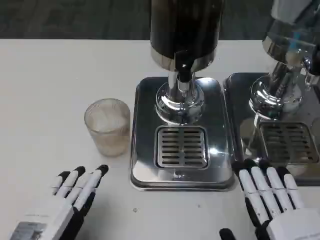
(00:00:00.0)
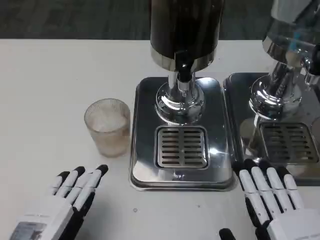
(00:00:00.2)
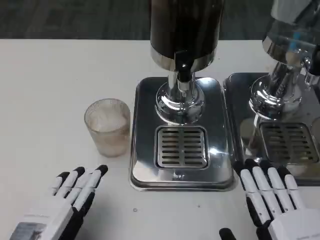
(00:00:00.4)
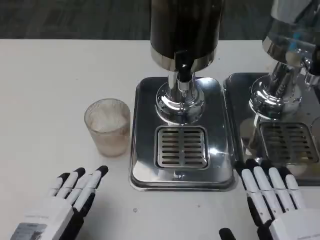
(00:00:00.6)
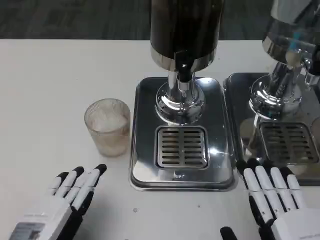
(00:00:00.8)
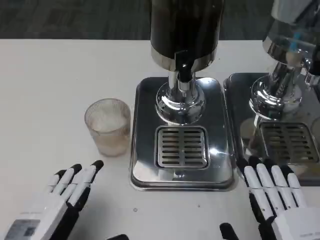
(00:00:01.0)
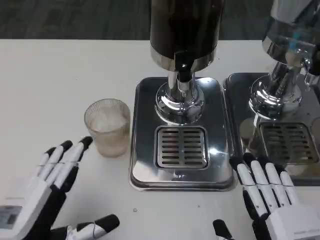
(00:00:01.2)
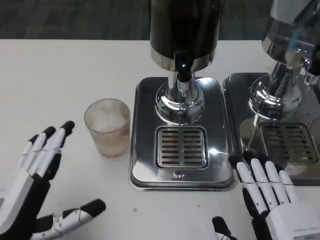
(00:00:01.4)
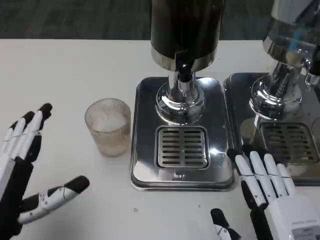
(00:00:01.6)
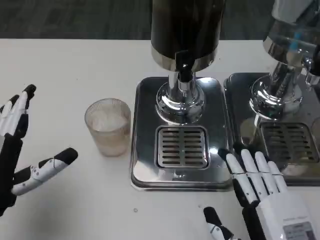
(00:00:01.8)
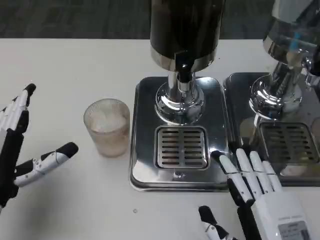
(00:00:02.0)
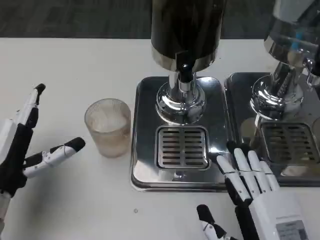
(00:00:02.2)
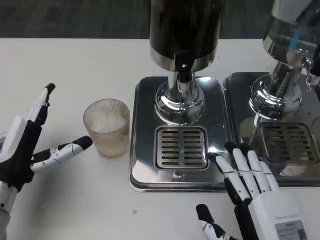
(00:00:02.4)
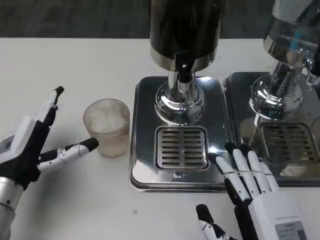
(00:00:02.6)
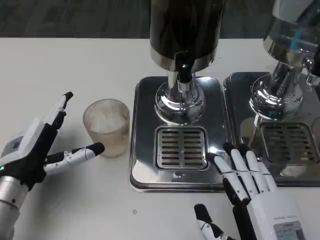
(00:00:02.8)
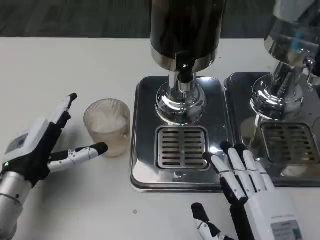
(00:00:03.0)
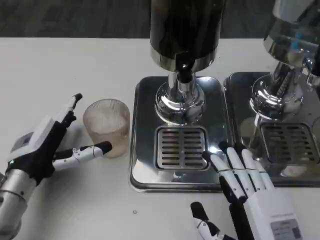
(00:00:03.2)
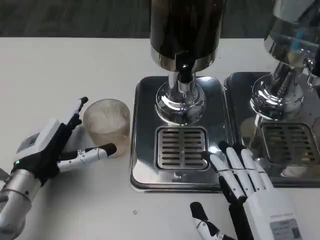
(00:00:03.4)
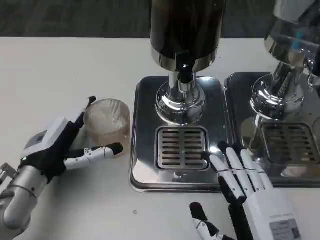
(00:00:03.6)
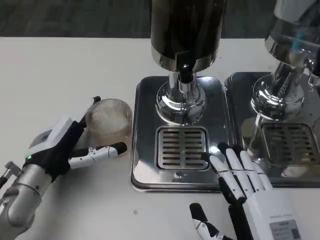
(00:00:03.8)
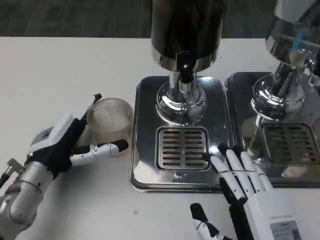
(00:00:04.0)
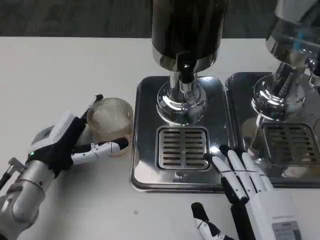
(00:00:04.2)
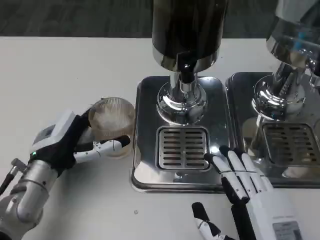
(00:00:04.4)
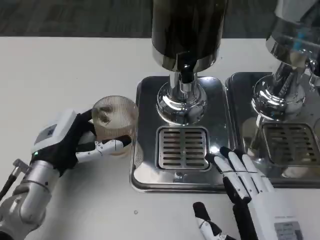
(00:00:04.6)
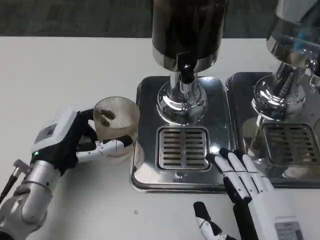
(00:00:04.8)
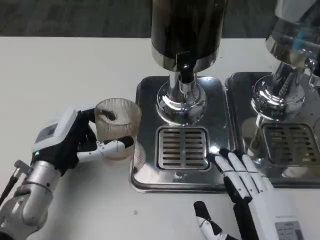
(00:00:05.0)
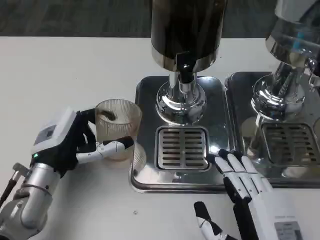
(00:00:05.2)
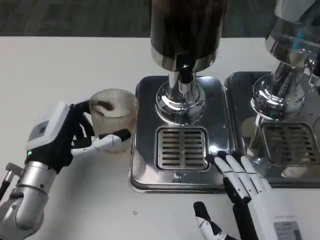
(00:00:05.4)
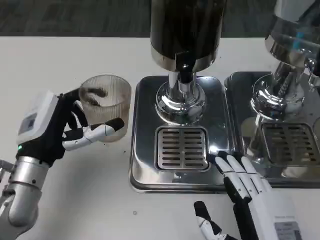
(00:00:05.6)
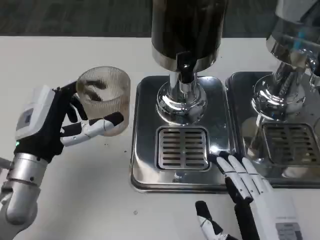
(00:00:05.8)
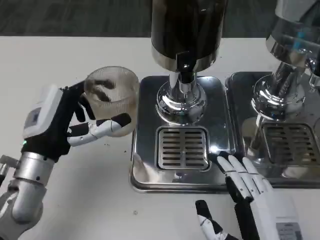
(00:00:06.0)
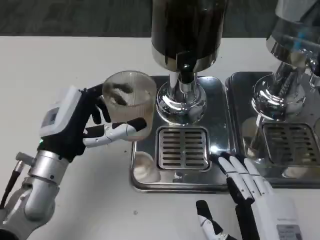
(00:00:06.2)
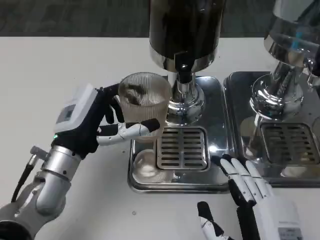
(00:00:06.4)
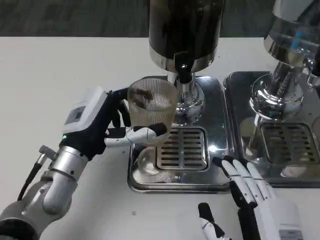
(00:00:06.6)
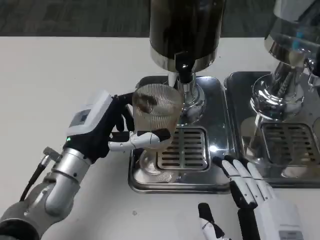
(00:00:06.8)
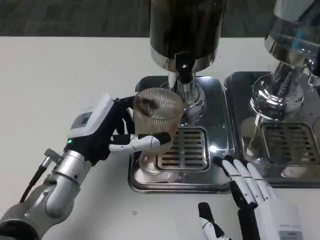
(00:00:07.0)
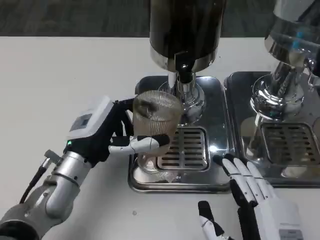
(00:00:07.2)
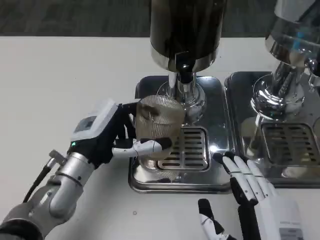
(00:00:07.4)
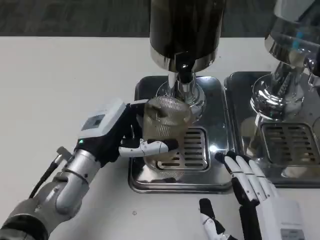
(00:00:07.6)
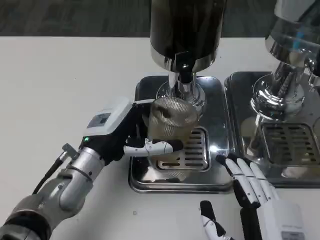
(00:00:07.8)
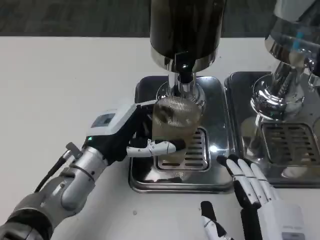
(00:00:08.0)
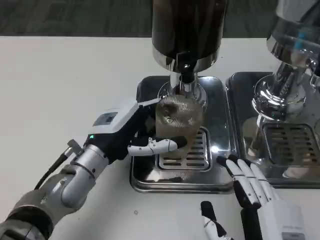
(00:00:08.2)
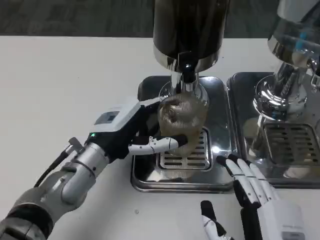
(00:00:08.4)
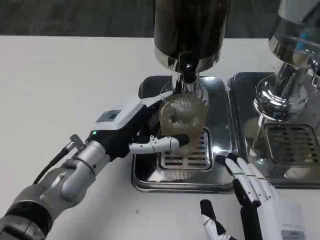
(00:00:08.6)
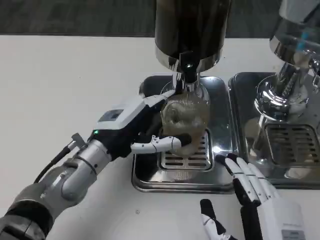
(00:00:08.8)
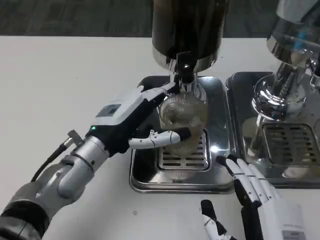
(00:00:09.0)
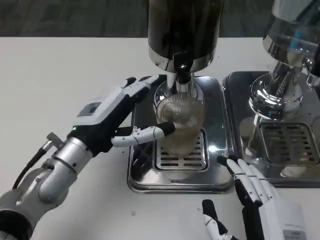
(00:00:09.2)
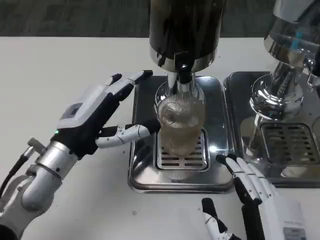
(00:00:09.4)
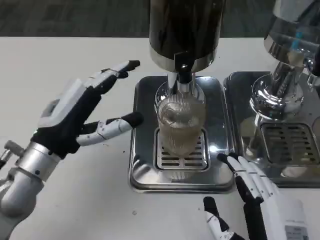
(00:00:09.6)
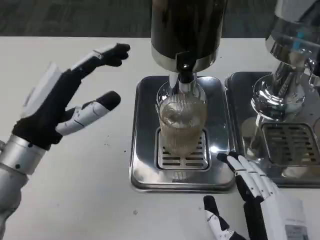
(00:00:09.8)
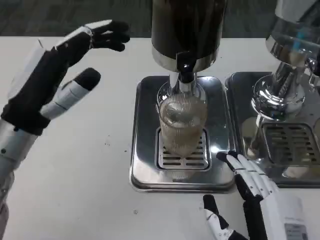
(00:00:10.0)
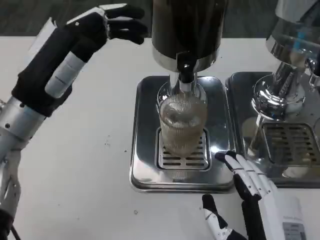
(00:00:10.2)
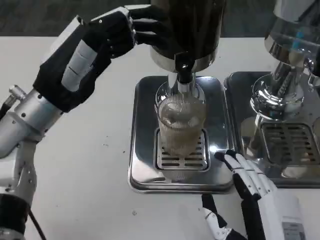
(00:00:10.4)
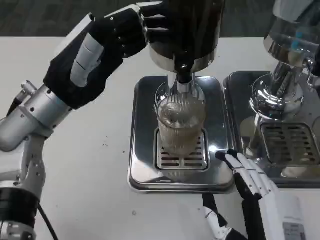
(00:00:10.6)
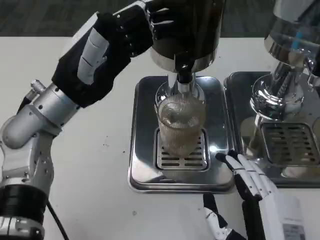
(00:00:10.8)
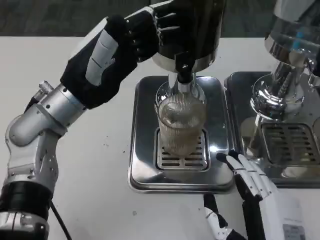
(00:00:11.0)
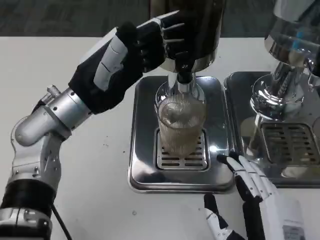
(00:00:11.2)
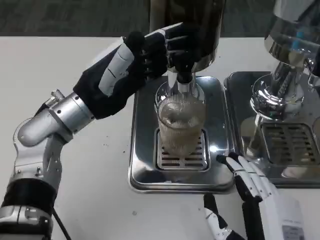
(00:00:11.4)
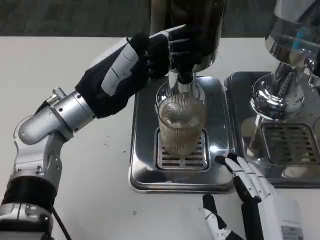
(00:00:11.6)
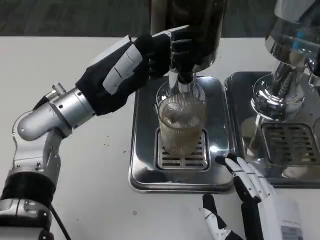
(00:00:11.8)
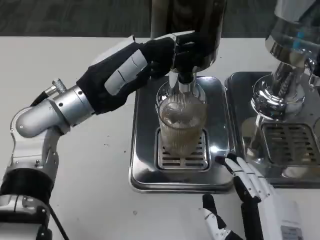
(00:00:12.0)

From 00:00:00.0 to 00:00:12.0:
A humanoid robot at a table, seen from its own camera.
Task of the whole recording: Grasp the cup under the faucet to collect the drink, then remove the cup.
From 00:00:00.0 to 00:00:01.6: The left hand shifts by some 5 cm.
From 00:00:01.6 to 00:00:03.0: The left hand goes some 10 cm forward.
From 00:00:03.0 to 00:00:04.4: The hands make only small movements.
From 00:00:06.0 to 00:00:07.6: The left hand shifts by about 5 cm.
From 00:00:09.0 to 00:00:10.4: The left hand travels upward by some 10 cm.

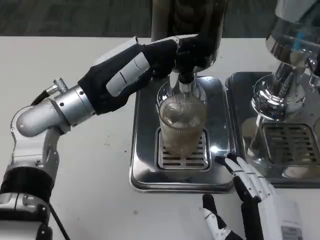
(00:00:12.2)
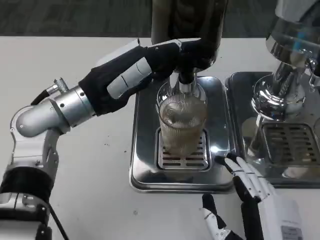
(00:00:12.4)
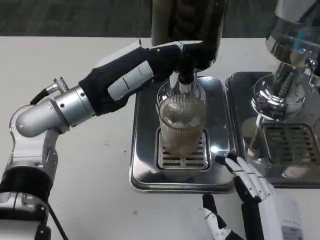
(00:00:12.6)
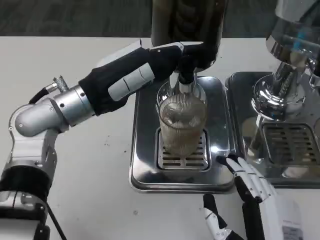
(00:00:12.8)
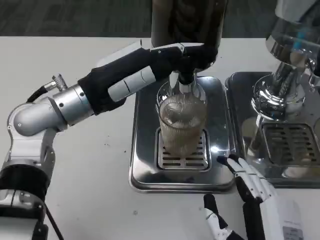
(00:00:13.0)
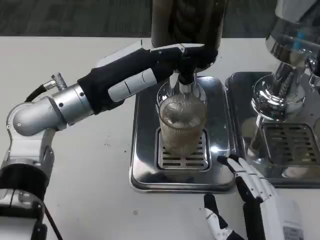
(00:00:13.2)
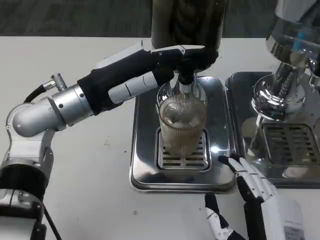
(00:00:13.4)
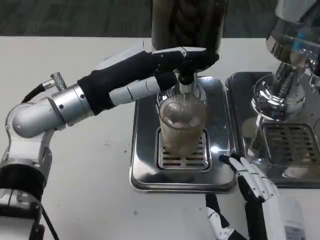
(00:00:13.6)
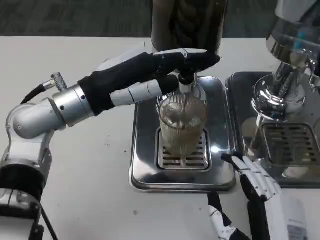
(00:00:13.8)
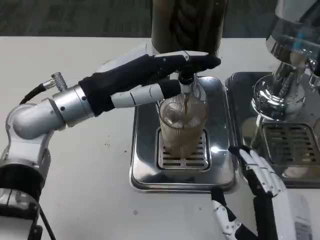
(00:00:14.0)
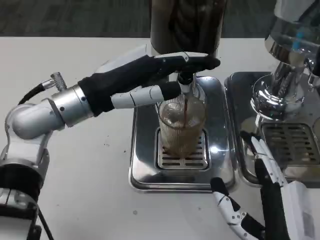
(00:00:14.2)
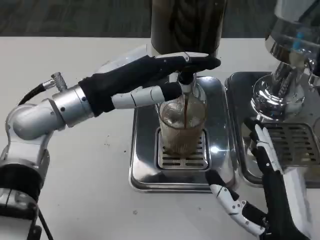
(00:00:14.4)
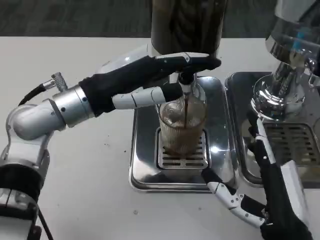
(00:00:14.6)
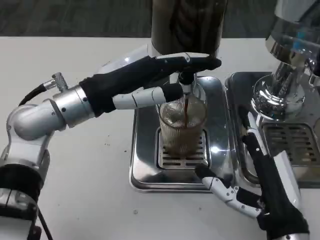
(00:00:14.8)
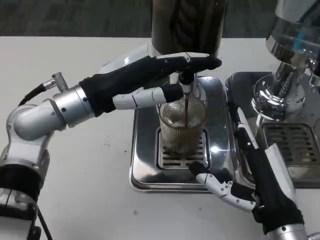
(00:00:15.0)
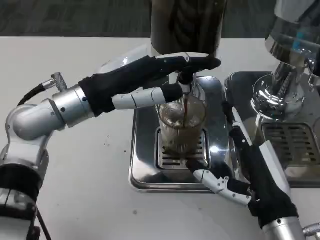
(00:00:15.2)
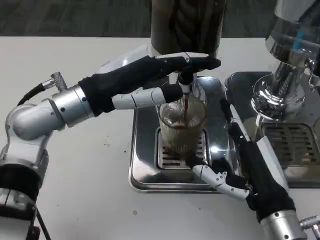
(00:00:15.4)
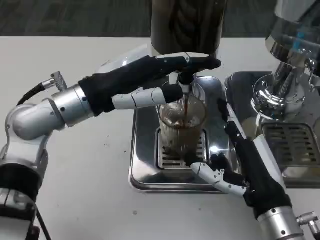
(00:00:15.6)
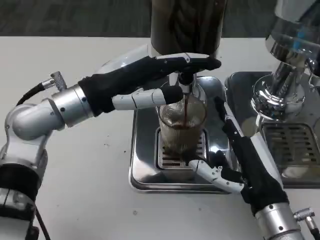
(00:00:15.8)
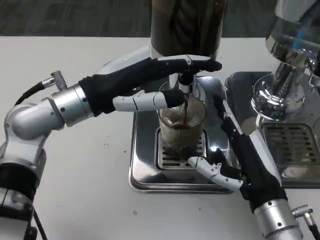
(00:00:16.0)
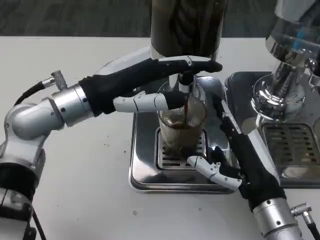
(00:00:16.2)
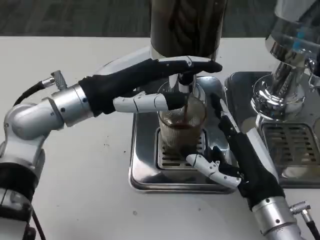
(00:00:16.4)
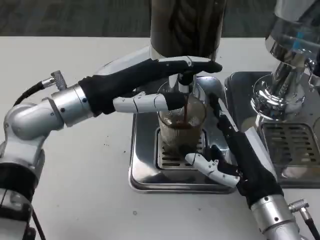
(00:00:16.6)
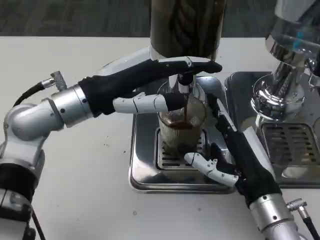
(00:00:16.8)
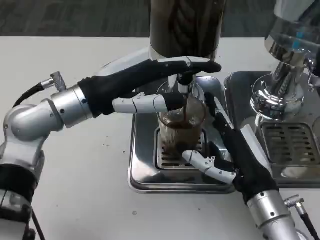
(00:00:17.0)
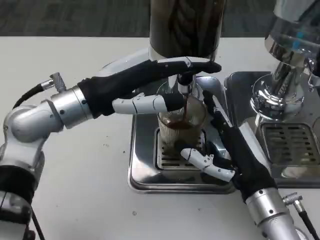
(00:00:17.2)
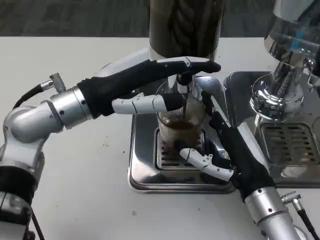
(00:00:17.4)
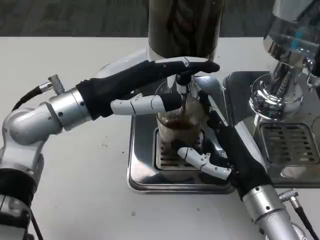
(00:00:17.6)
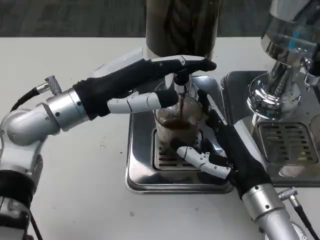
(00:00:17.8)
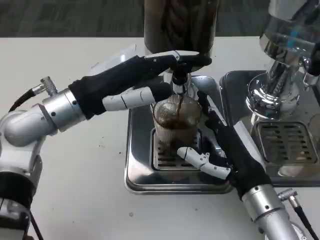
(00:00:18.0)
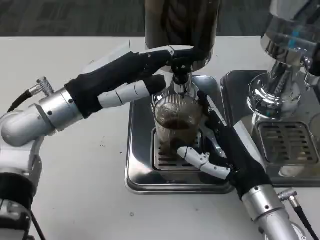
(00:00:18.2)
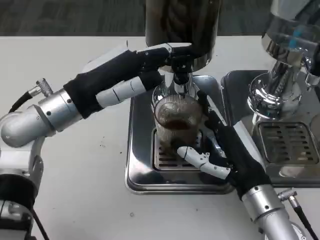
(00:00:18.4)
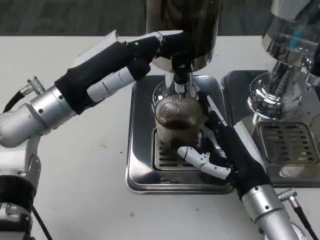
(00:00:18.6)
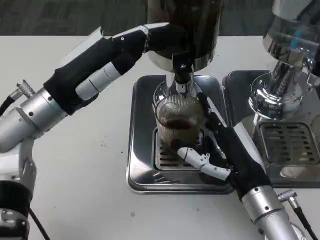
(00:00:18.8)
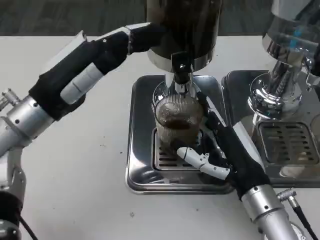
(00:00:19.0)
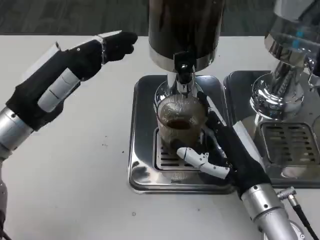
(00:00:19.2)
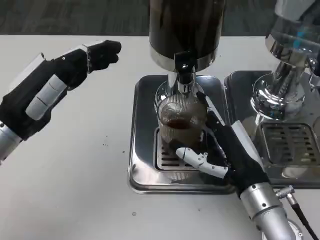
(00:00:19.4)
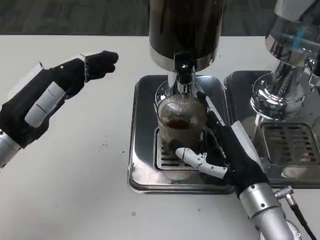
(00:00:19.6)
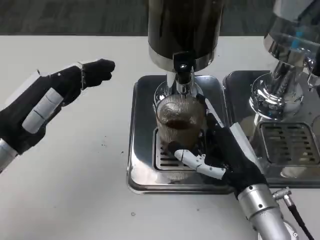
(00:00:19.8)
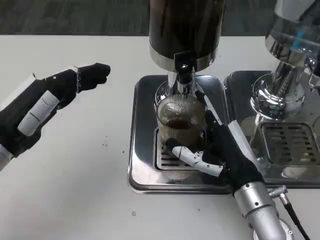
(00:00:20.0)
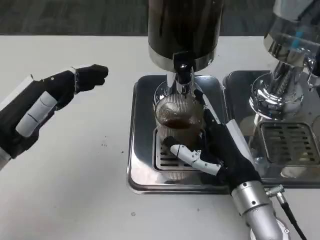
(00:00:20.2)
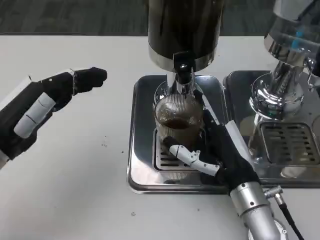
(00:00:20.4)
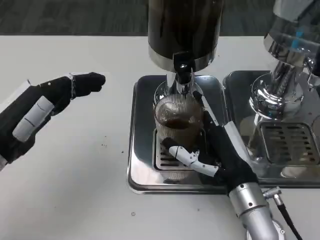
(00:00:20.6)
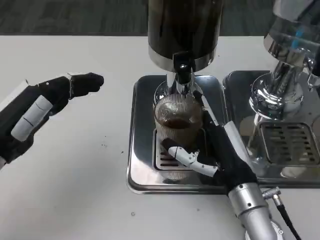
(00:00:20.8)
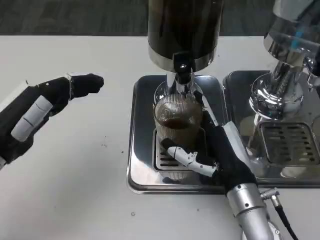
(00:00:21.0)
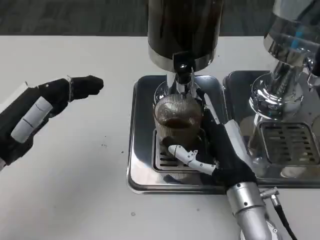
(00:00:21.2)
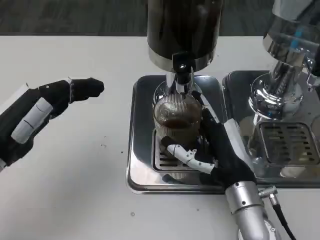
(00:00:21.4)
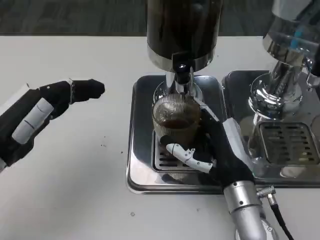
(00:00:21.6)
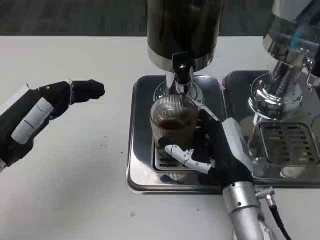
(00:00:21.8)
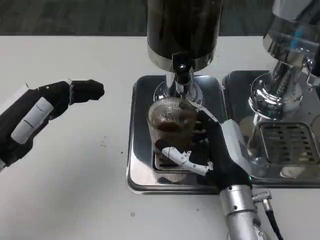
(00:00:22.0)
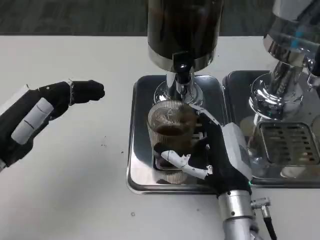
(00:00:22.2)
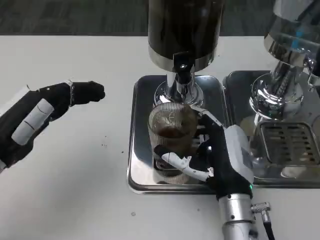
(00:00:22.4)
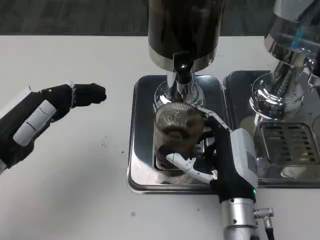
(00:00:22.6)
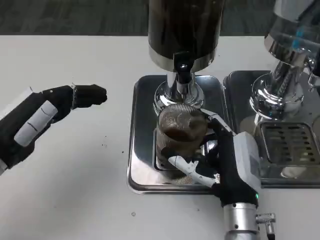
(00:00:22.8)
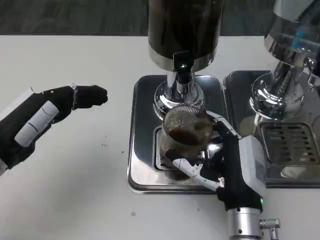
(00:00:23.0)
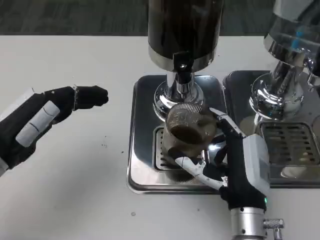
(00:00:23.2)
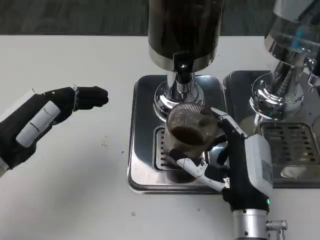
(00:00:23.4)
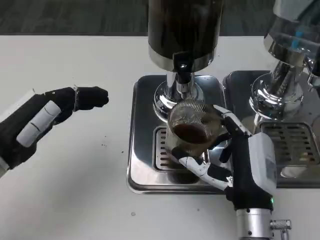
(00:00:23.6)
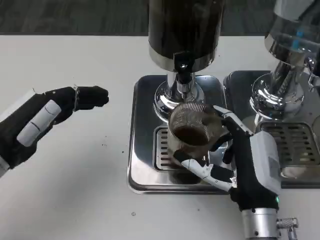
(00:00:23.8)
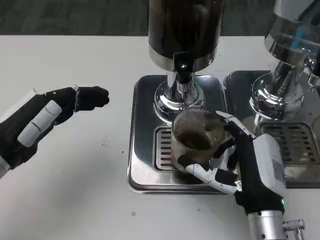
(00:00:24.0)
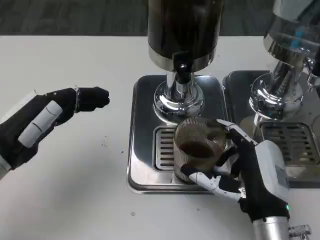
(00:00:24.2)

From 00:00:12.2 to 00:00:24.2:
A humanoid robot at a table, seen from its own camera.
Task of the whole recording: Grasp the cup under the faucet to collect the drink, then remove the cup.
From 00:00:12.2 to 00:00:13.8: There are only small adjustments of the hands.
From 00:00:13.8 to 00:00:15.2: The right hand travels forward by approximately 10 cm.
From 00:00:15.2 to 00:00:16.6: The hands make only small movements.
From 00:00:18.2 to 00:00:19.8: The left hand travels to the left and backward by approximately 10 cm.
From 00:00:19.8 to 00:00:21.2: The hands make only small movements.
From 00:00:21.2 to 00:00:22.6: The hands move only a little.
From 00:00:22.6 to 00:00:24.2: The right hand moves approximately 5 cm.
